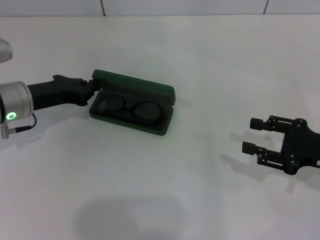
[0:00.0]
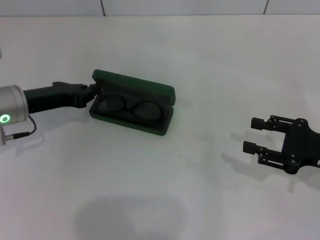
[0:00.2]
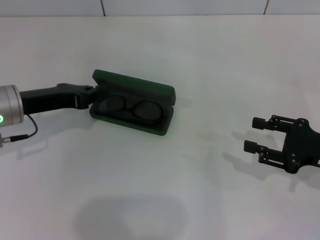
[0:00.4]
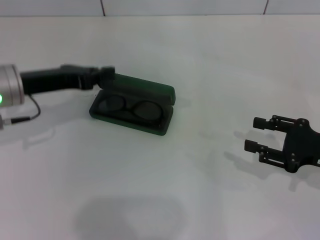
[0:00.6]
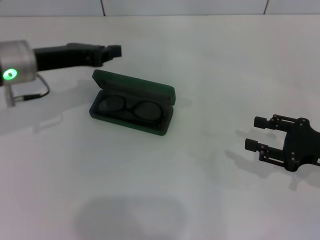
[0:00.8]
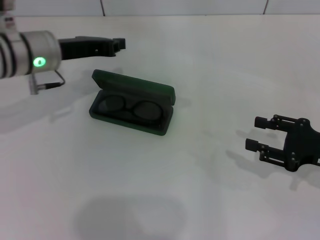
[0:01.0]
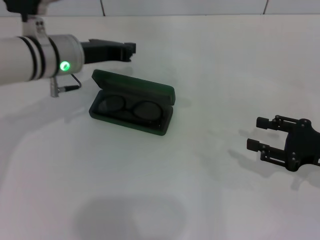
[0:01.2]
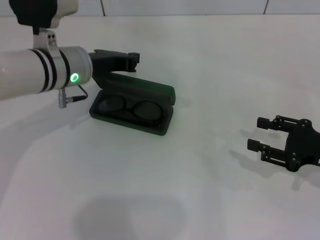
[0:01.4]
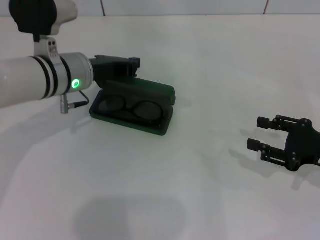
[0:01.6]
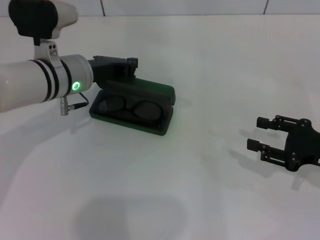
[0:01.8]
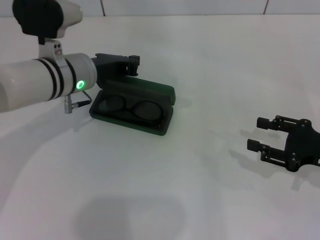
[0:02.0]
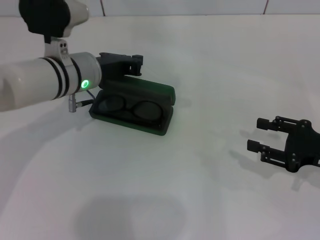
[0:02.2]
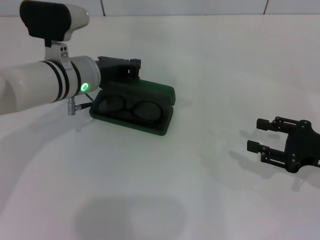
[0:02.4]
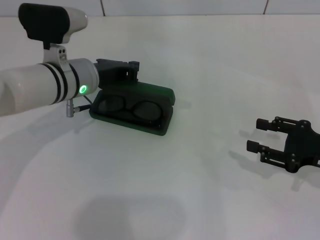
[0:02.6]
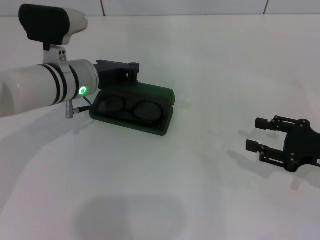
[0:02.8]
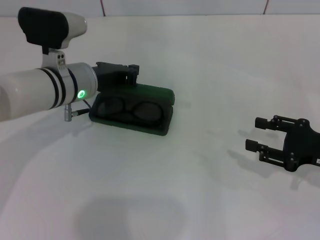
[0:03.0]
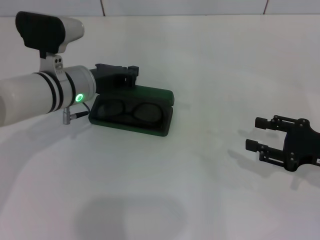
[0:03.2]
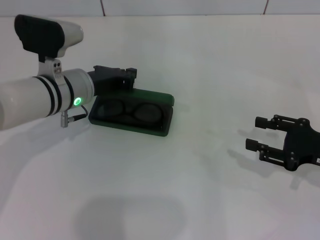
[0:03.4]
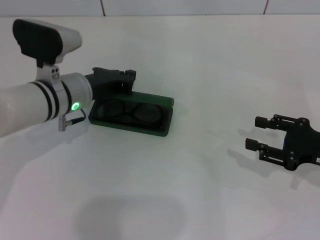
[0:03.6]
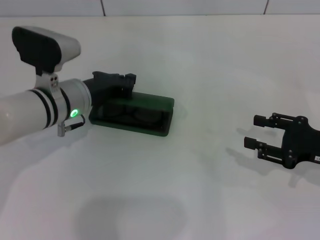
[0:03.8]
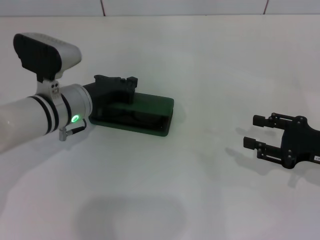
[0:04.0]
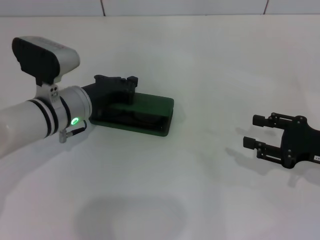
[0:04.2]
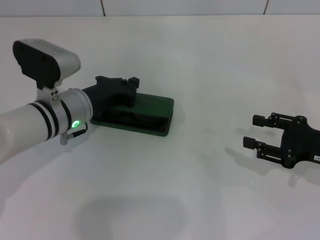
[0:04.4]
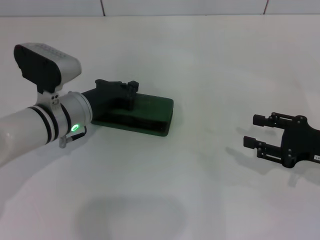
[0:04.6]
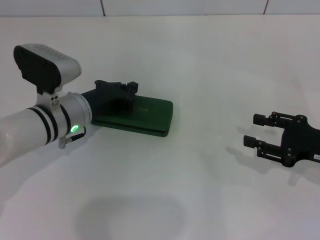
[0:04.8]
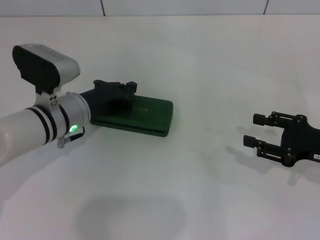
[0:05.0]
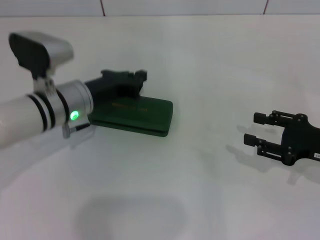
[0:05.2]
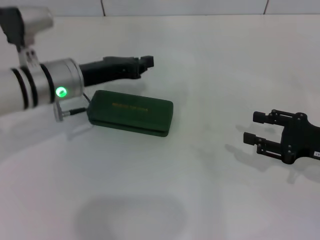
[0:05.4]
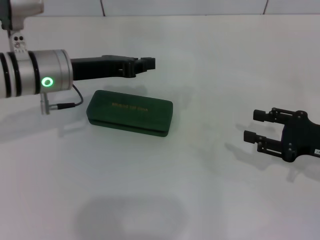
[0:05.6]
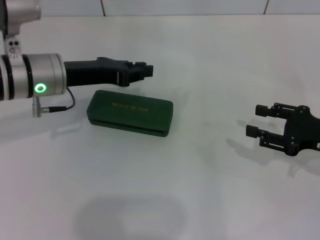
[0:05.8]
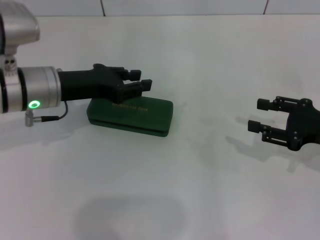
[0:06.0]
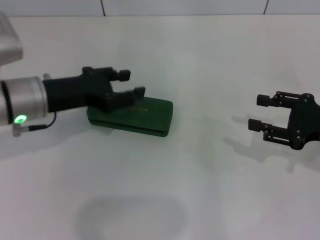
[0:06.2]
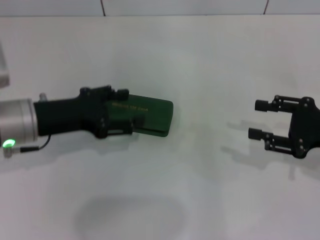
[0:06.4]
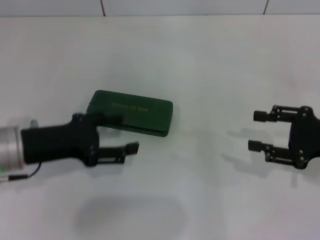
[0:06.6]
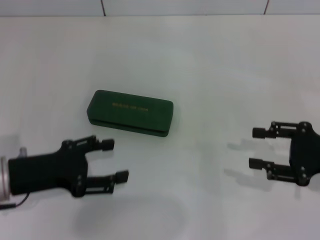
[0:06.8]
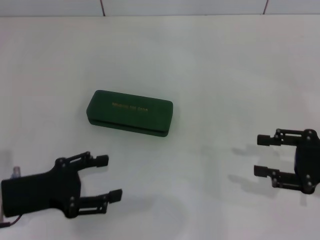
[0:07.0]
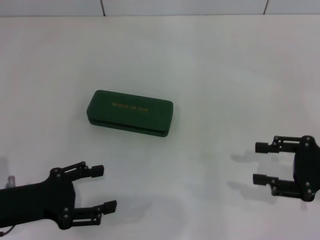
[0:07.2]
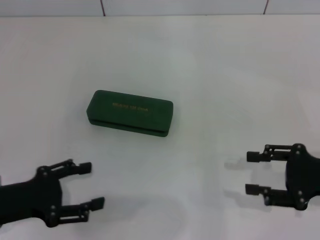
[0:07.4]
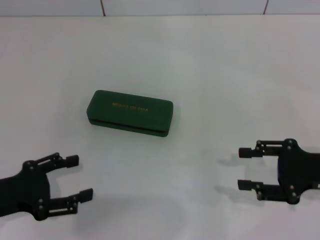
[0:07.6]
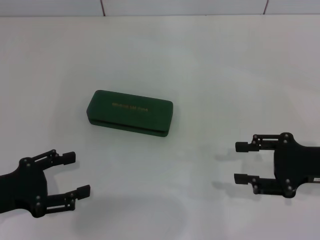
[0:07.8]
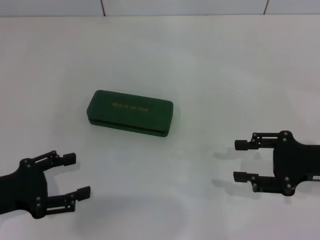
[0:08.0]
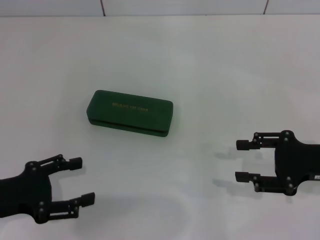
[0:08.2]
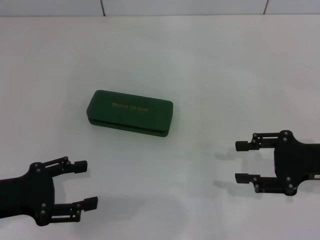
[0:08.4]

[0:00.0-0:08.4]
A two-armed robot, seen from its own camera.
Step, 0:00.0 to 0:04.8: Close the glasses case with your left hand.
0:00.0 to 0:01.4: The left gripper shifts about 10 cm to the right.
0:01.4 to 0:02.8: There are only small adjustments of the grippers.
0:02.8 to 0:04.2: The grippers stay close to where they were, moving slightly.
0:04.2 to 0:05.6: The left gripper moves upward, approximately 5 cm.
0:05.6 to 0:07.0: The left gripper is displaced backward and to the left by roughly 20 cm, and opens its fingers.
0:07.0 to 0:08.4: The grippers move only a little.

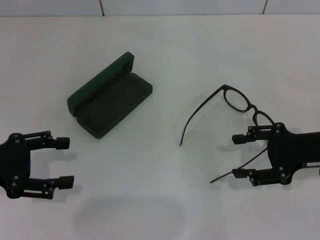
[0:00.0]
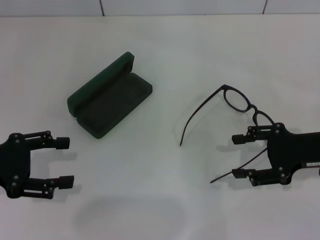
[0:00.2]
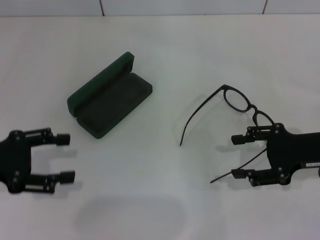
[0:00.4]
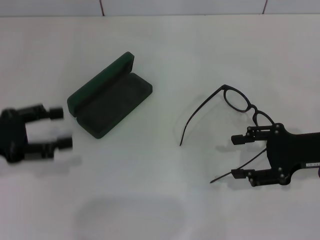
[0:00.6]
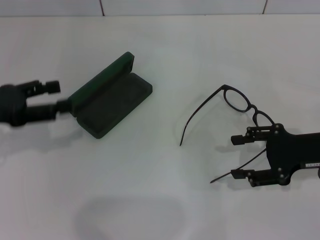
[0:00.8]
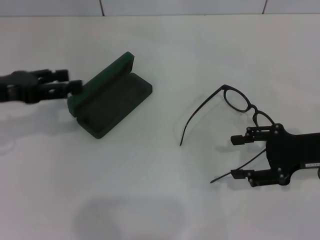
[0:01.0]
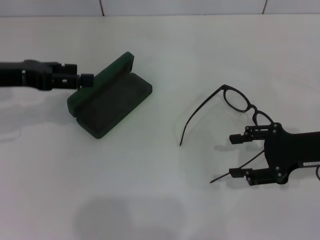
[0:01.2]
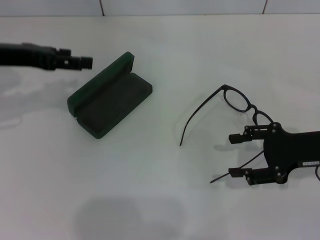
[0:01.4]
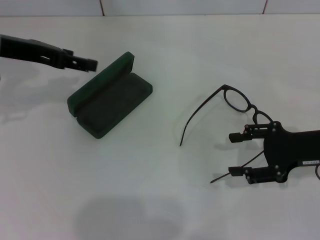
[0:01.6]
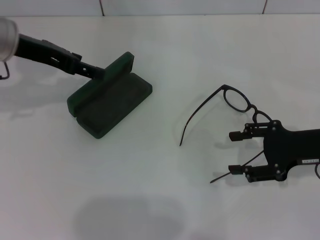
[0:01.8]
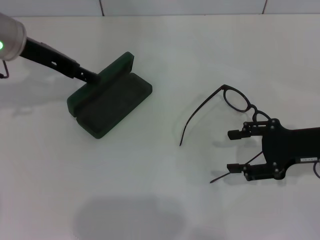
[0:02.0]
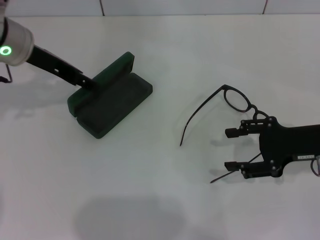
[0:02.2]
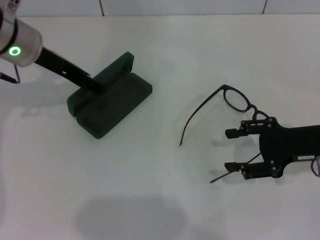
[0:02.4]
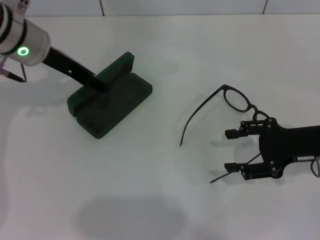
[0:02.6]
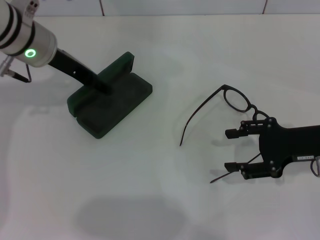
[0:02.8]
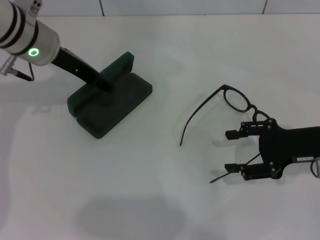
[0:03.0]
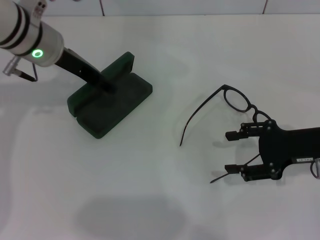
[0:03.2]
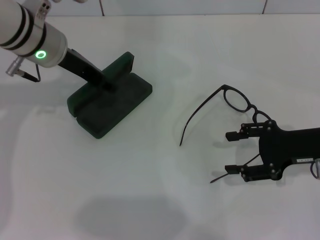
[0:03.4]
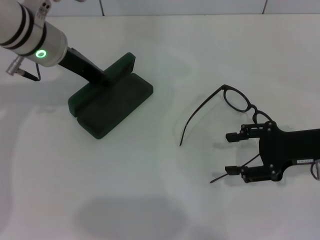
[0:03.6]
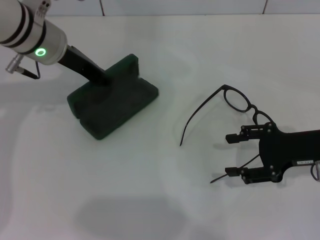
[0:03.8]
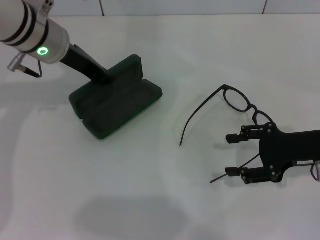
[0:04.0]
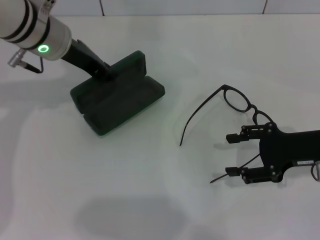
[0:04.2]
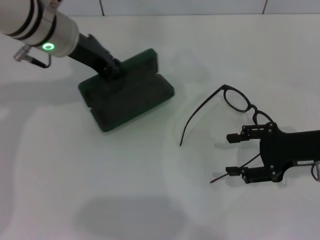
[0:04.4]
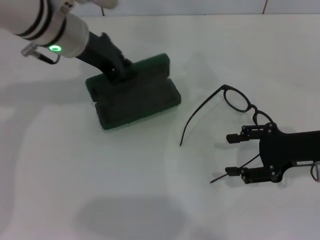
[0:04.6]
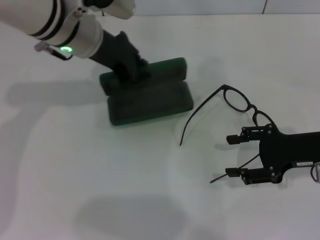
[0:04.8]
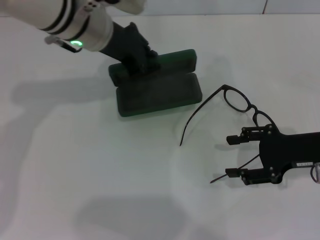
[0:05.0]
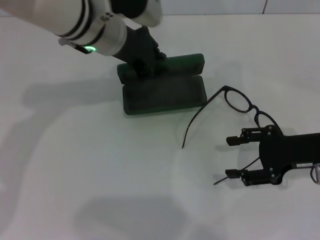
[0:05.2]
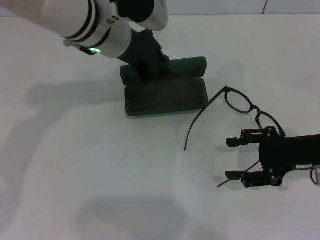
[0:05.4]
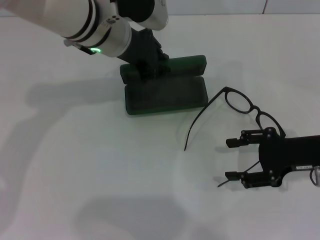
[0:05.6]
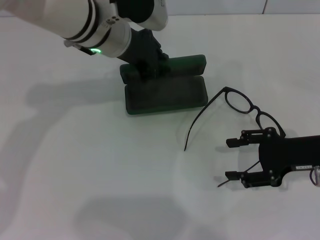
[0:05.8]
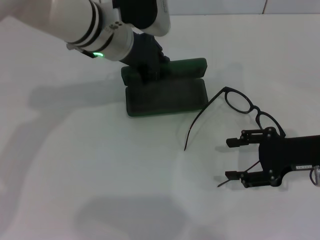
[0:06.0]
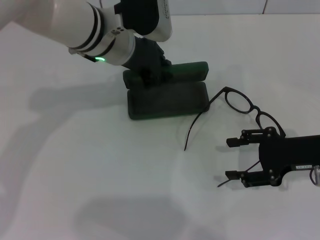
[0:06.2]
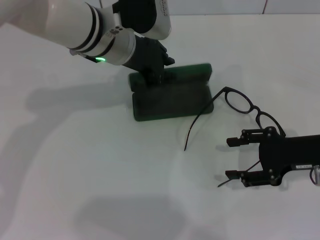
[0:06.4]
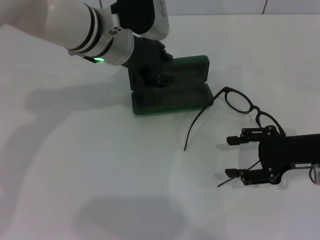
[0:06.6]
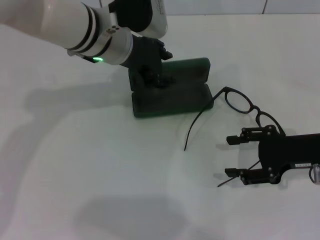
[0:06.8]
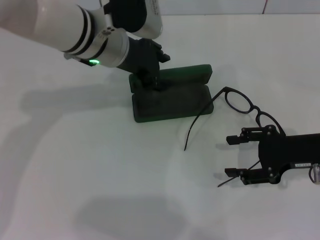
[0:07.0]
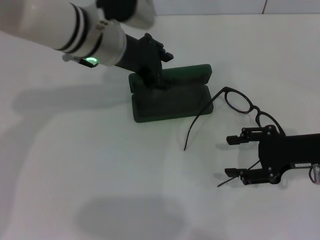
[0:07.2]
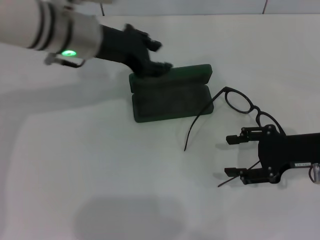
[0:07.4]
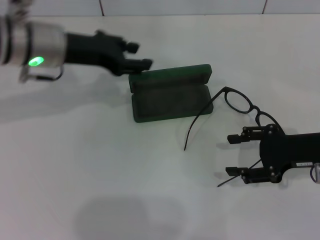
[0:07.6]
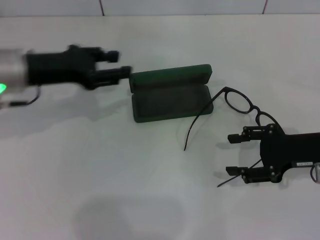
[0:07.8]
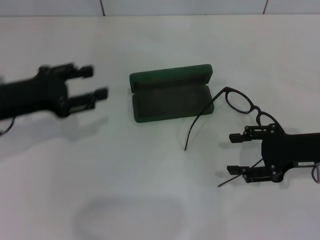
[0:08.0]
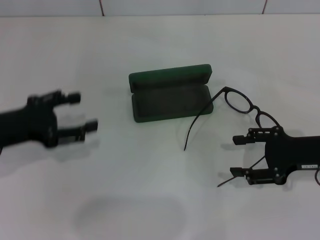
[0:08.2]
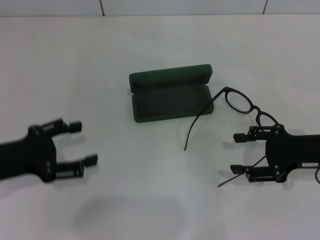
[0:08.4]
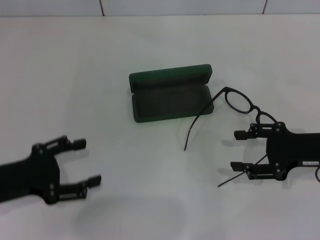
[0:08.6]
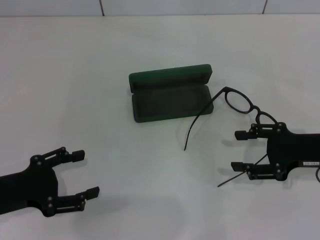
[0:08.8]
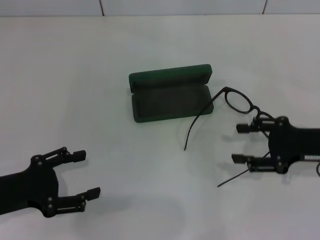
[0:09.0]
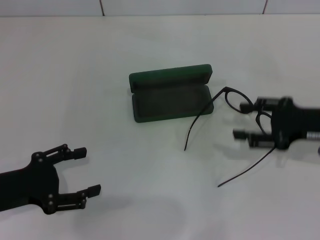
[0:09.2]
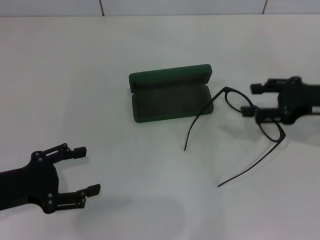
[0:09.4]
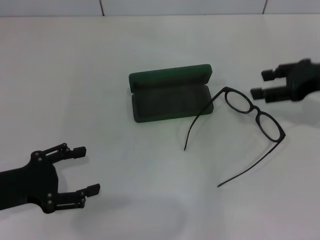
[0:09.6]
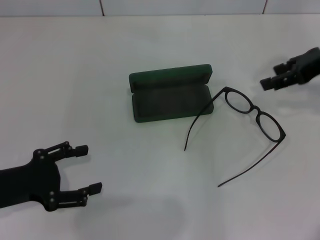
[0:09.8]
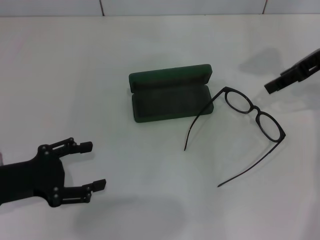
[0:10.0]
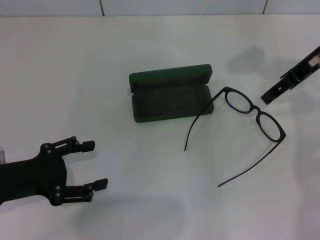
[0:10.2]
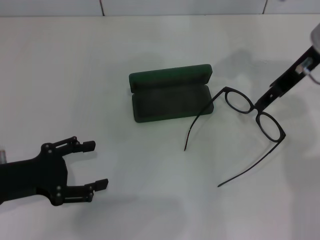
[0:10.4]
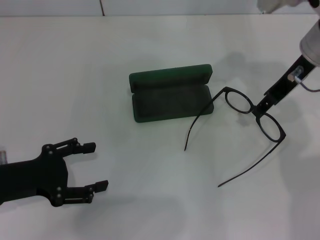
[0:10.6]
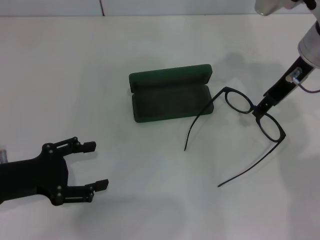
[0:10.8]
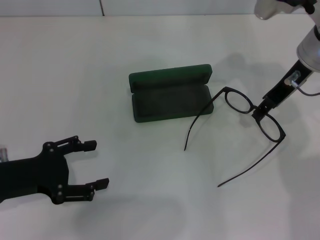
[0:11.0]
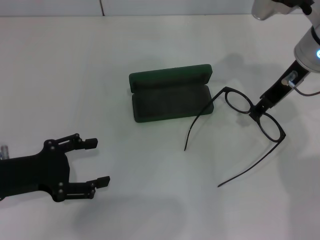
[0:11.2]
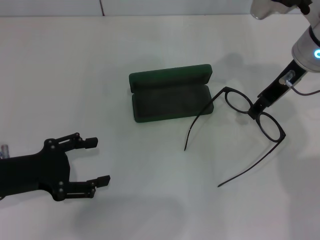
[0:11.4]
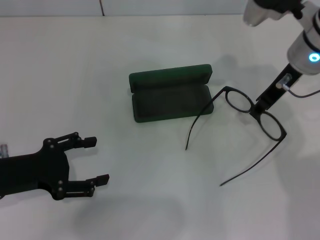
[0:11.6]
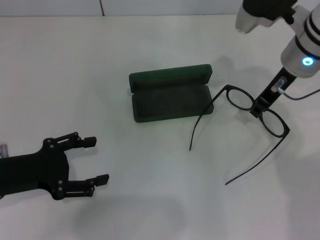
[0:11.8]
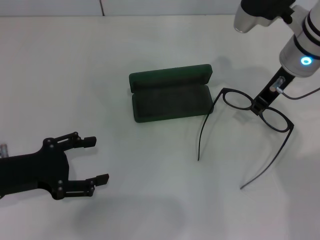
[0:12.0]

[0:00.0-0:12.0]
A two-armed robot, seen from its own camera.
Step, 0:00.0 to 0:03.8: Grab the glasses case with your left hand.
Step, 0:04.0 to 0:06.8: Place the glasses case in the center of the table with your left hand.
Step, 0:07.0 to 0:12.0: Grab the eyeglass frame with your right hand.
0:00.0 to 0:01.6: The left gripper goes some 15 cm forward, upward and to the right.
0:01.6 to 0:03.0: The left gripper is displaced to the right by approximately 5 cm.
0:03.0 to 0:04.4: The left gripper closes up.
0:04.4 to 0:06.0: The left gripper moves to the right, approximately 5 cm.
0:06.0 to 0:07.6: The left gripper travels to the left by about 10 cm, and opens up.
0:07.6 to 0:09.0: The left gripper travels backward, to the left and downward by some 25 cm.
0:09.0 to 0:10.4: The right gripper is displaced upward, forward and to the left by about 20 cm.
0:10.4 to 0:12.0: The right gripper closes.

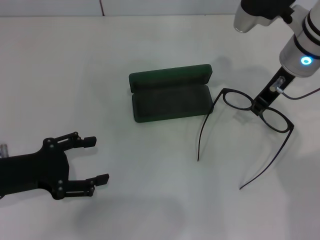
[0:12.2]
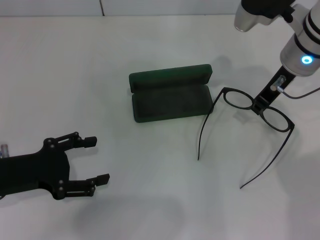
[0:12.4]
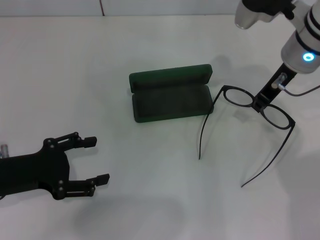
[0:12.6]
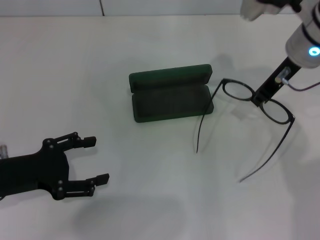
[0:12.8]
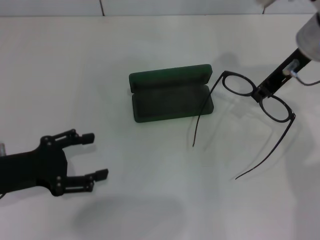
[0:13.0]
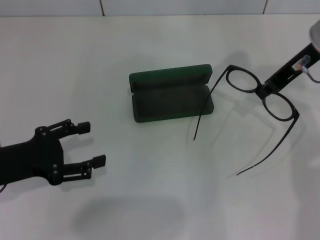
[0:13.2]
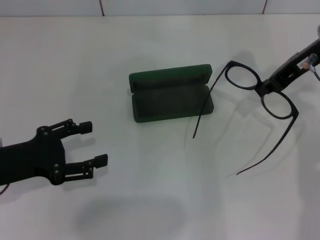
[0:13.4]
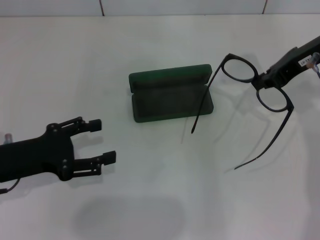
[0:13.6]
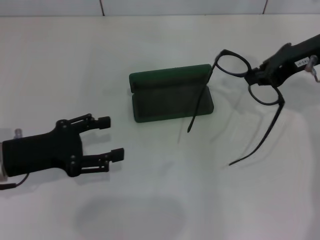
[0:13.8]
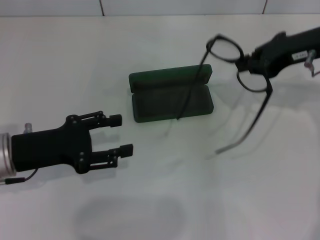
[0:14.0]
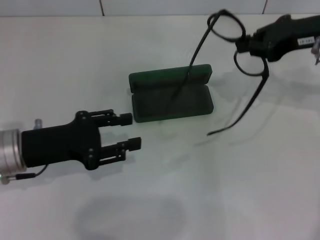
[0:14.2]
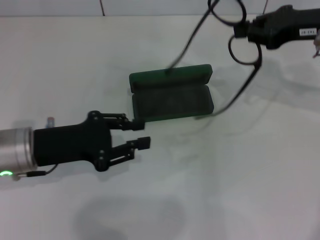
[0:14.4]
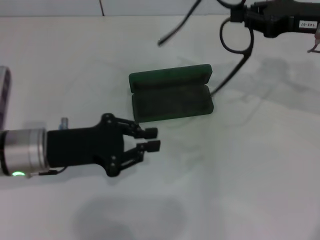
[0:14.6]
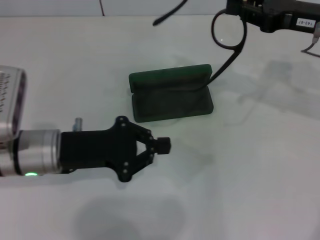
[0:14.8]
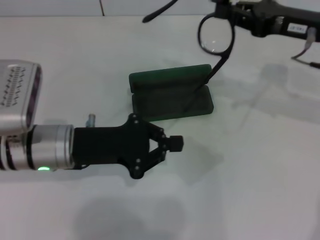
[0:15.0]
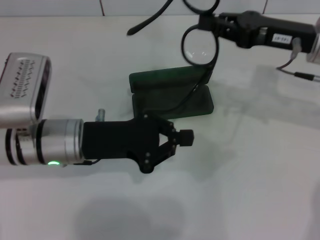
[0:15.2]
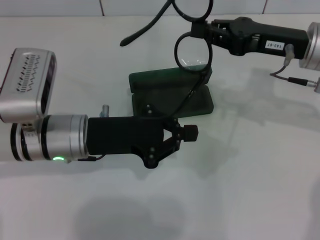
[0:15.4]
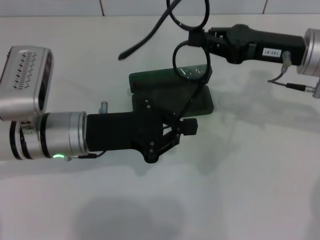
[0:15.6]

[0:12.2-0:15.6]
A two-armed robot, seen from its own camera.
0:12.2 to 0:13.8: The right gripper heads to the right, covering roughly 5 cm.
0:13.8 to 0:15.6: The right gripper ends up roughly 5 cm from where it was; the left gripper shifts roughly 10 cm to the right, and closes.
